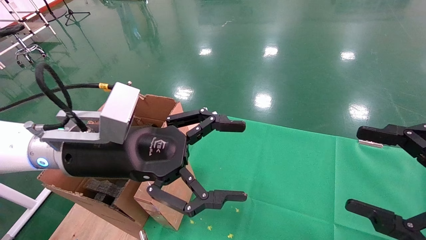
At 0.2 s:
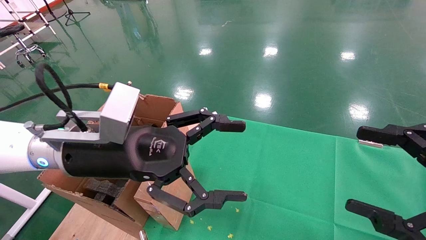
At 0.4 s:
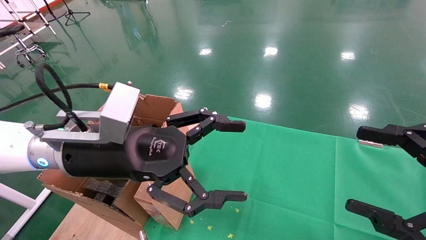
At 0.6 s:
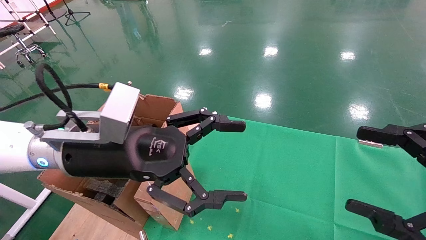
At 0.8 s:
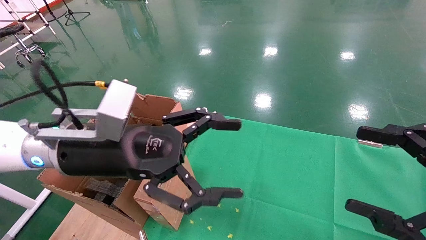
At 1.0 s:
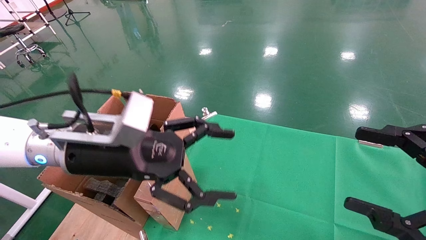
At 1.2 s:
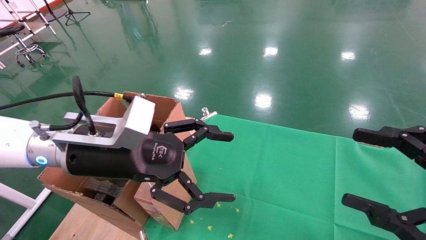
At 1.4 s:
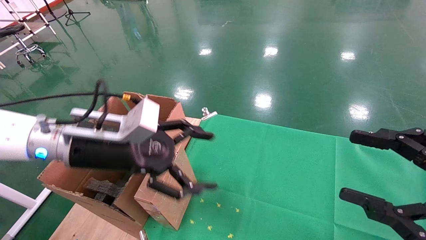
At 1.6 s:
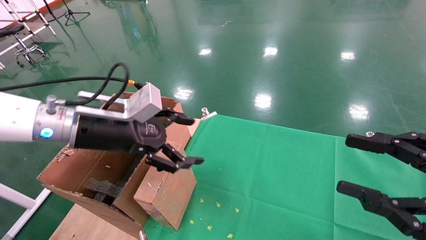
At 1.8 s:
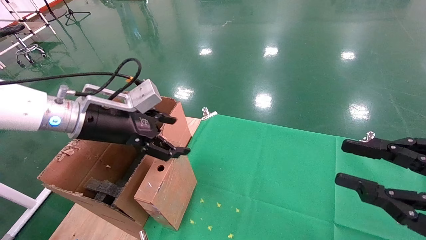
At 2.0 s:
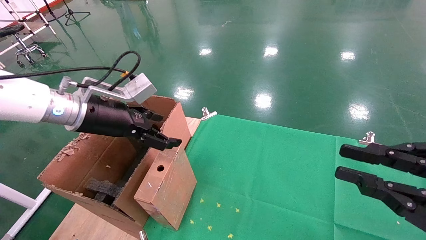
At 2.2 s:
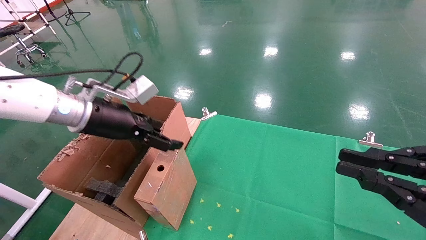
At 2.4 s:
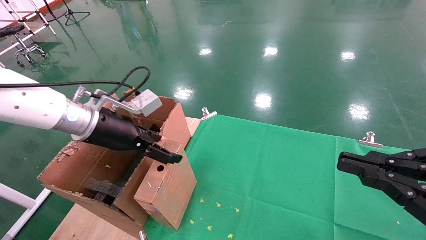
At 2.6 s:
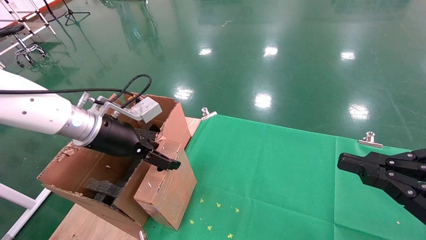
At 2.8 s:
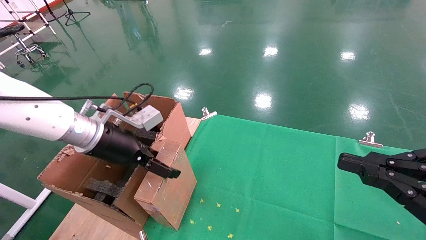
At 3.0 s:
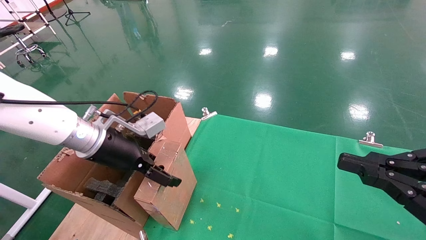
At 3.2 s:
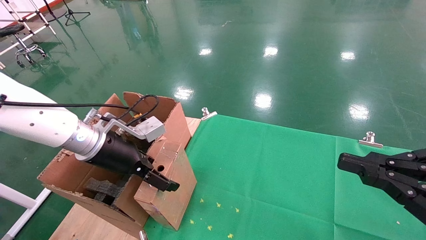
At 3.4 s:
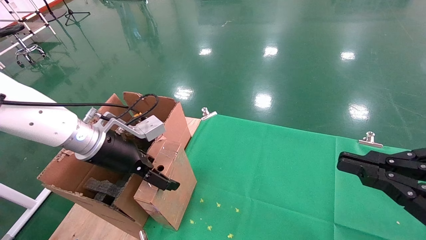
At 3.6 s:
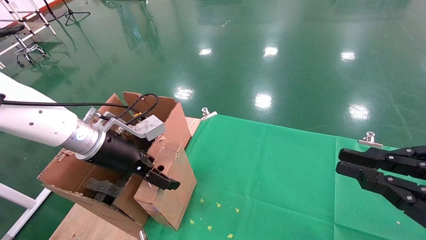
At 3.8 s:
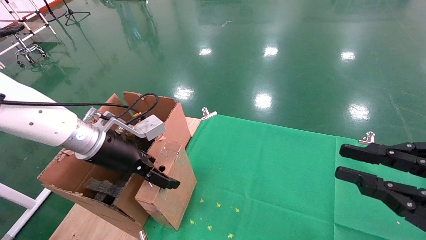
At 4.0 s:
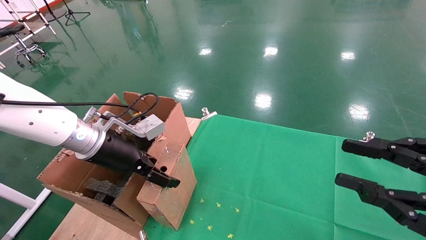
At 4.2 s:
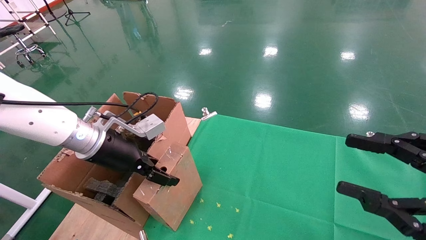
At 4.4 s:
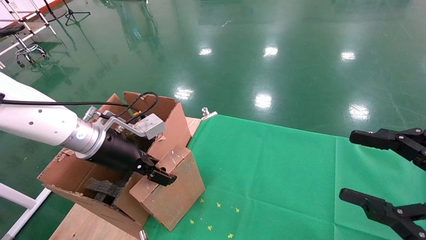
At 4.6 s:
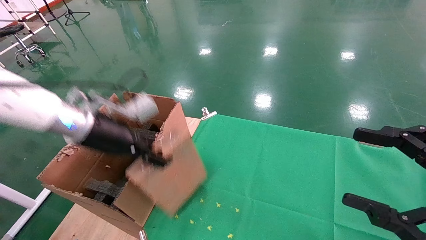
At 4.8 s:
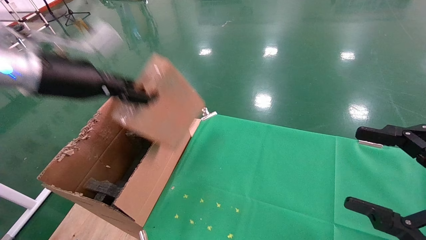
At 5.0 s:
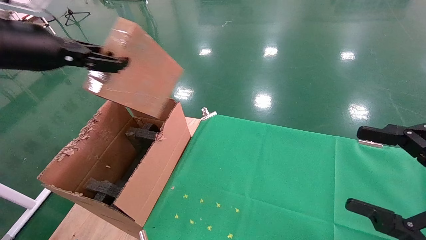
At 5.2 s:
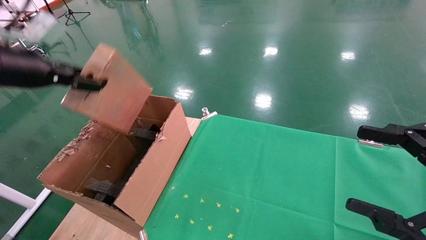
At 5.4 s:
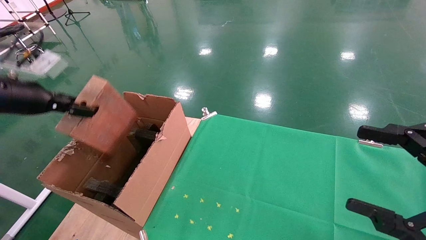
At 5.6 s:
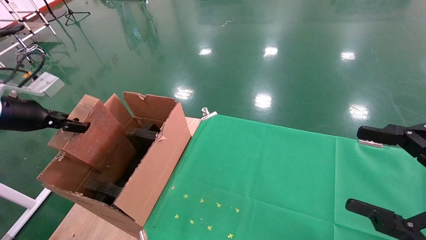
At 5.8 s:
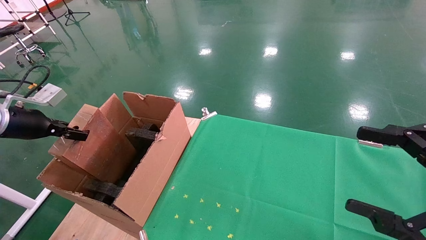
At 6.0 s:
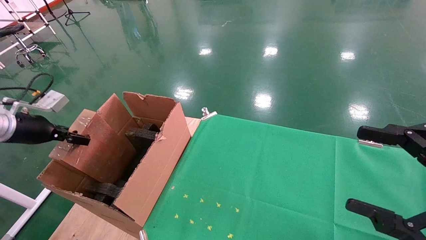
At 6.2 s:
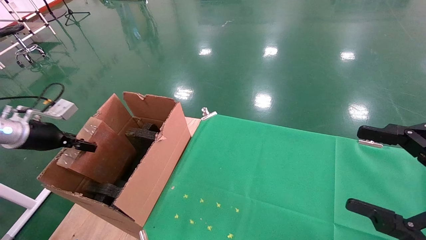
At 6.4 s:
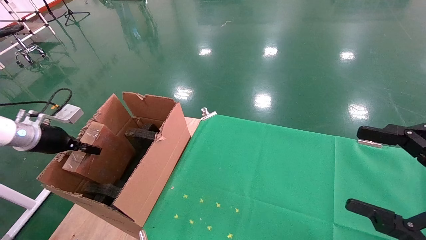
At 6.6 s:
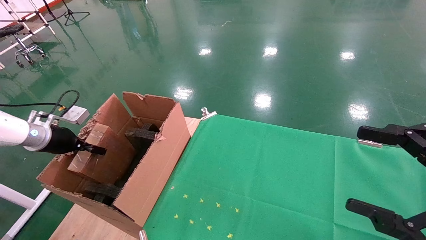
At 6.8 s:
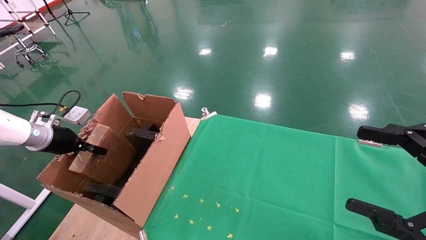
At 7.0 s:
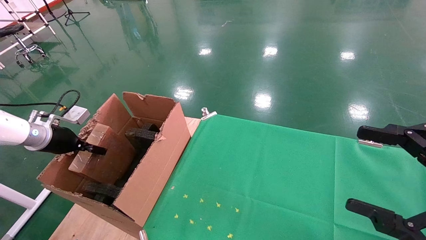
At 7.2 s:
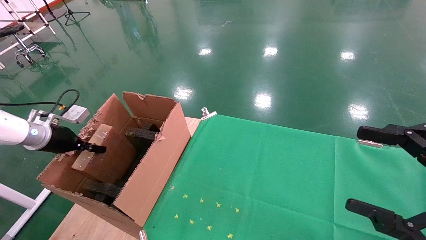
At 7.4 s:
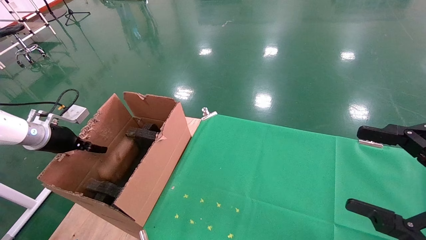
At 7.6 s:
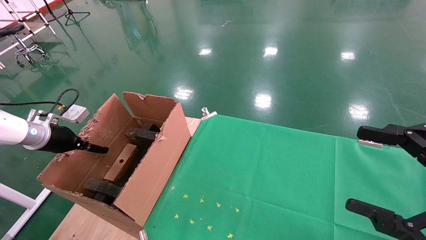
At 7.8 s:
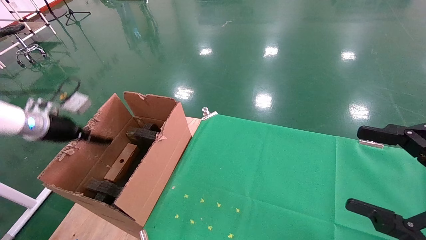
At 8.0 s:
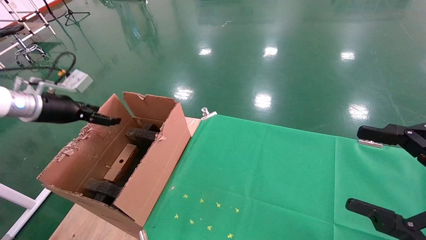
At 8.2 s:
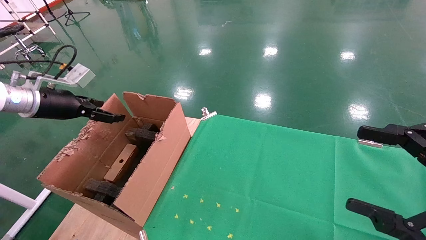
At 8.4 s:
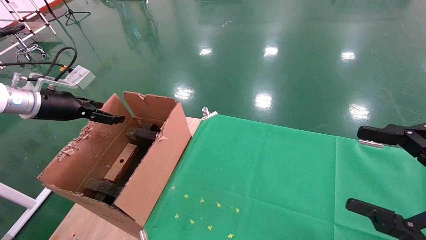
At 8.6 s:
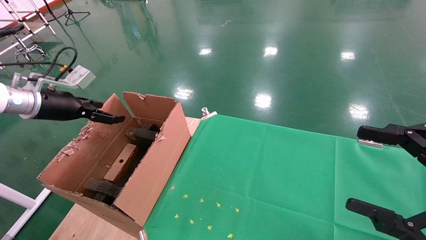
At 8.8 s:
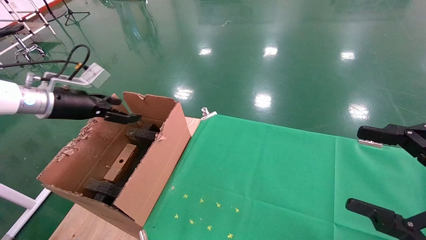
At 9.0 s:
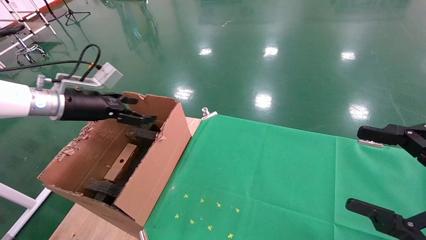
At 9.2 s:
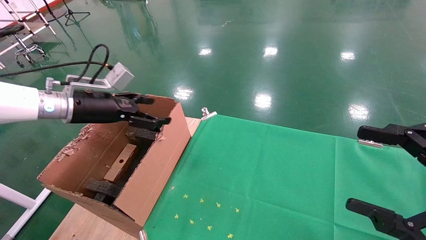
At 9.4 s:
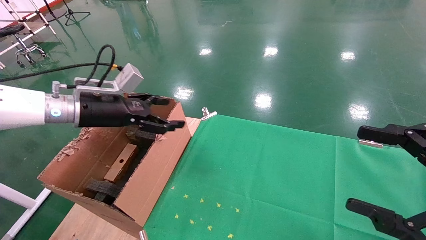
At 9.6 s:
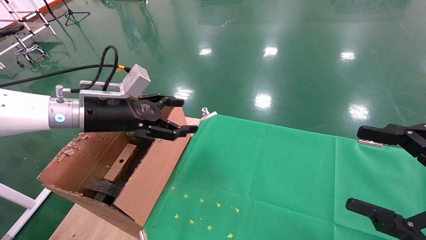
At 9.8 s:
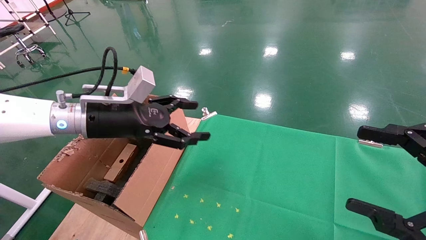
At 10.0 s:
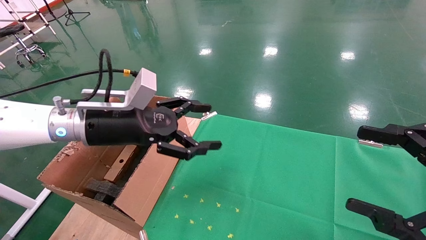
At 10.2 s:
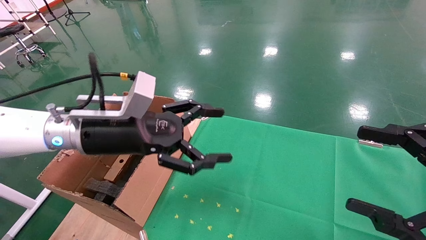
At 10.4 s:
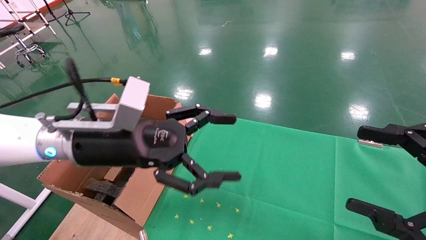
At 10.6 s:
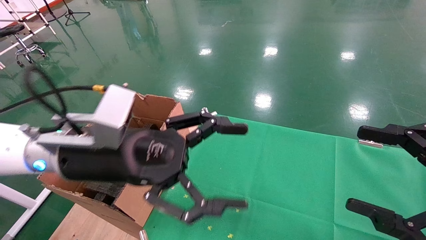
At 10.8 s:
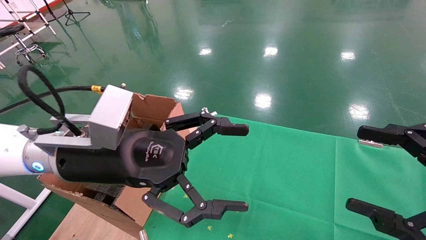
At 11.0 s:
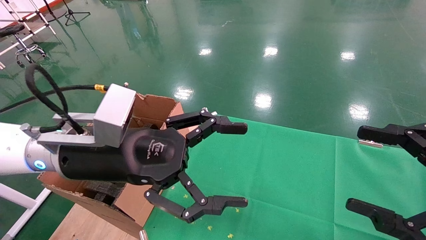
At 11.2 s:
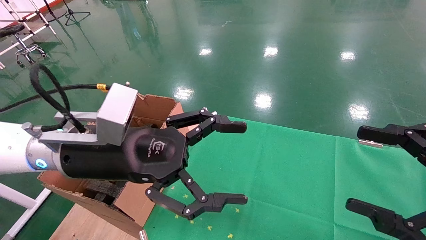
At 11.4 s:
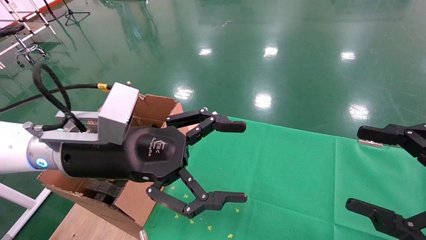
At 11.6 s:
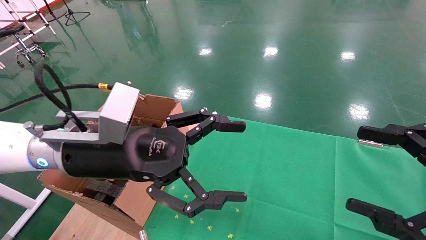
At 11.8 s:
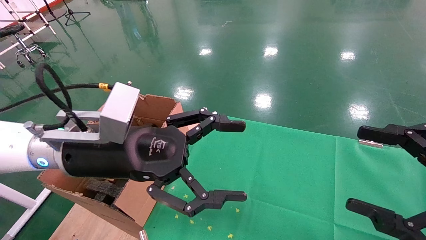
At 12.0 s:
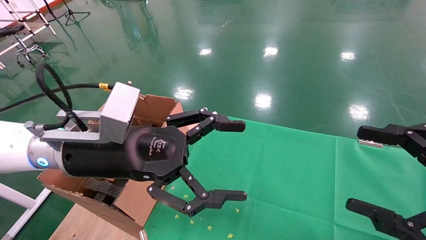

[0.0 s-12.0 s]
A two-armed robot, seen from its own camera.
Task of the whole recording: using a robotic arm to pick up a cardboard box and palace it the carton.
Step, 1.0 to 4.4 s: Pick up the mouse and the power cord paper box.
Step, 4.6 to 7.6 s: Place the mouse and the power cord paper box into the container.
0.0 to 1.6 s: The left gripper moves to the left and forward, approximately 10 cm.
1.6 to 3.0 s: The right gripper closes its fingers.
3.0 to 4.4 s: The right gripper opens; the left gripper closes.
4.4 to 6.0 s: The right gripper opens; the left gripper moves to the left, about 25 cm, and closes up.
6.0 to 7.6 s: The left gripper shifts by roughly 5 cm, and opens its fingers.
7.6 to 9.0 s: The left gripper travels to the right and upward by about 15 cm, and opens its fingers.
9.0 to 10.4 s: The left gripper is displaced to the right and backward by about 20 cm.
10.4 to 12.0 s: The grippers move only a little.

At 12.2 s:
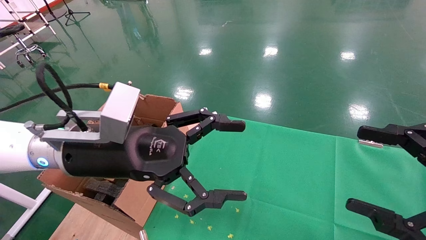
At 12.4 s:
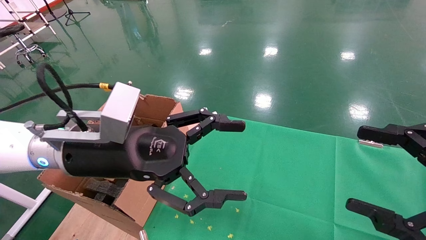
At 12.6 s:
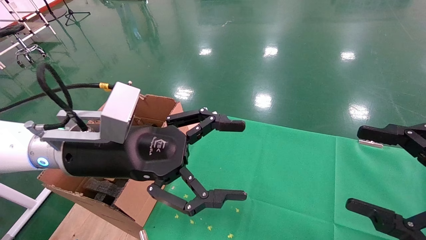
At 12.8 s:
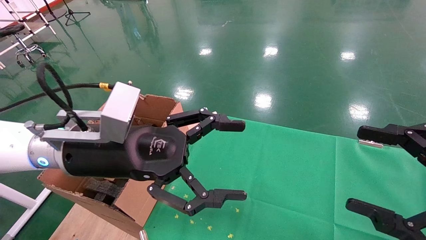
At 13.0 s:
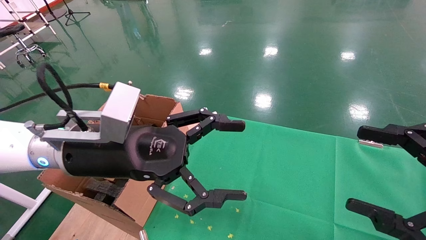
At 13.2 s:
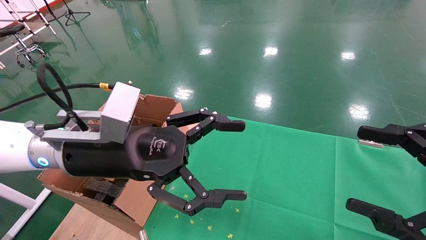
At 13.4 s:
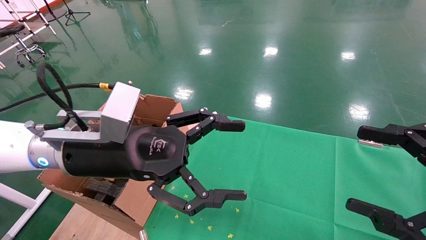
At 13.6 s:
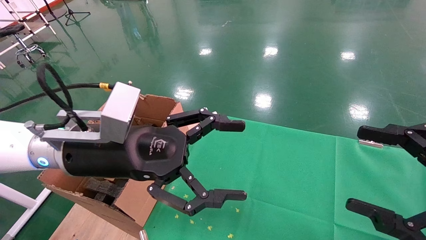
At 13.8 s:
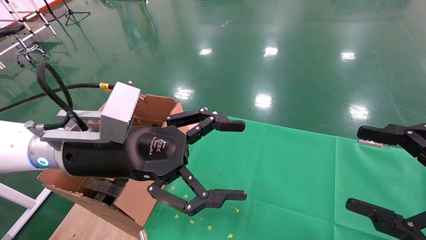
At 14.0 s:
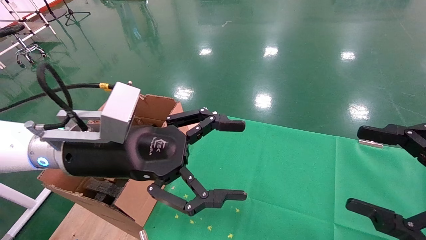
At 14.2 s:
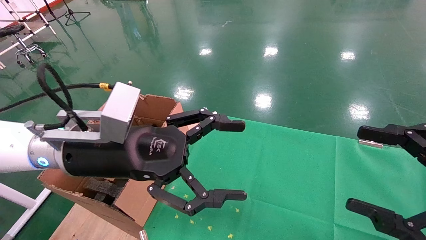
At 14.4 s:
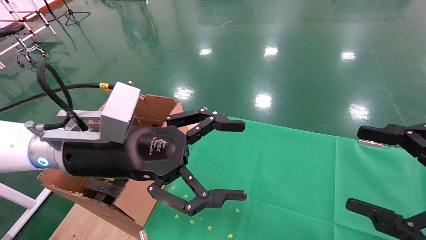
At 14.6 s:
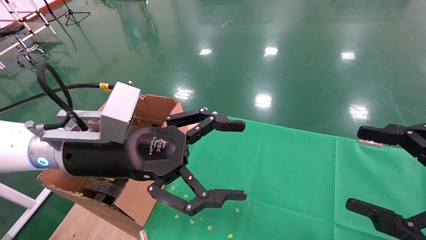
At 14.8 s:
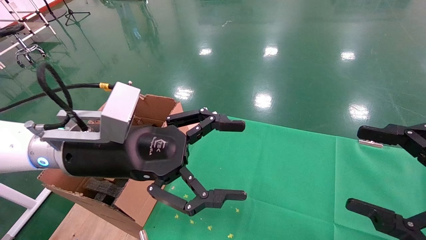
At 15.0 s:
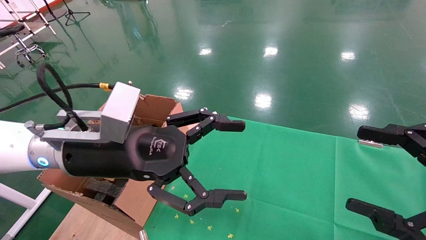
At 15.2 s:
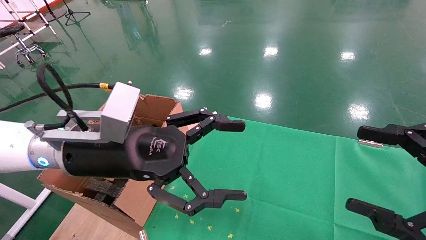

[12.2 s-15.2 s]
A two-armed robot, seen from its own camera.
Task of the whole recording: using a robotic arm to pick up a cardboard box and palace it the carton.
12.2 to 15.2 s: The two grippers keep their place.
